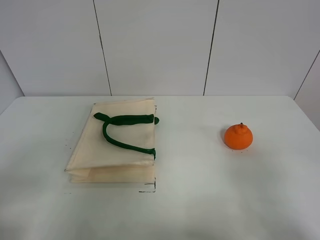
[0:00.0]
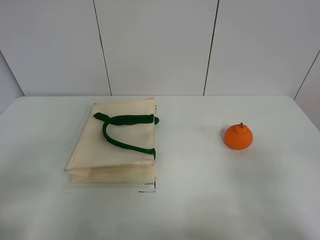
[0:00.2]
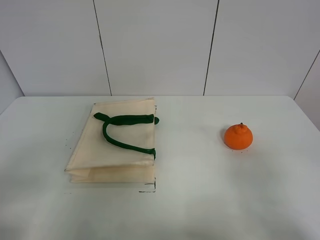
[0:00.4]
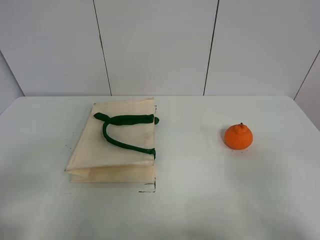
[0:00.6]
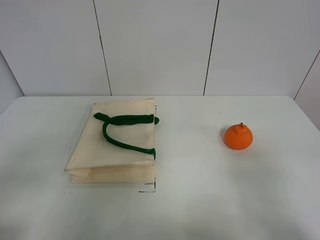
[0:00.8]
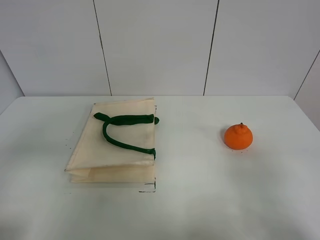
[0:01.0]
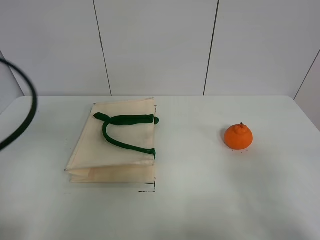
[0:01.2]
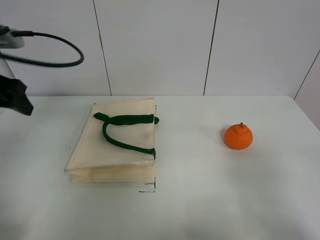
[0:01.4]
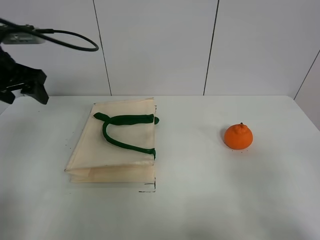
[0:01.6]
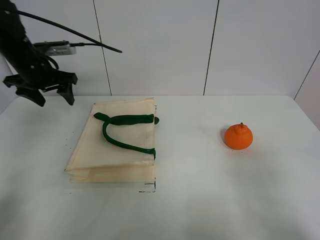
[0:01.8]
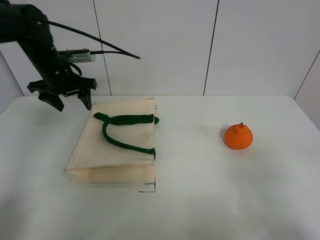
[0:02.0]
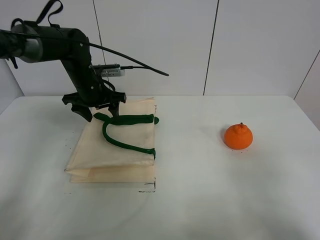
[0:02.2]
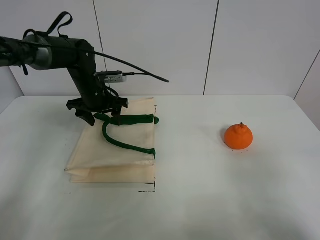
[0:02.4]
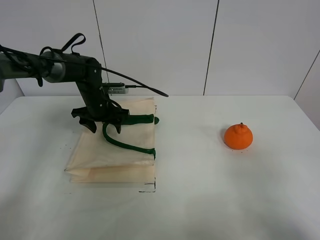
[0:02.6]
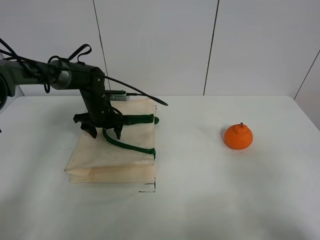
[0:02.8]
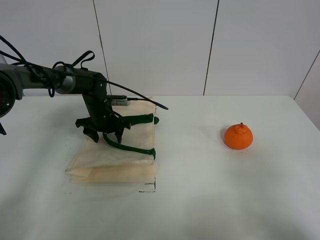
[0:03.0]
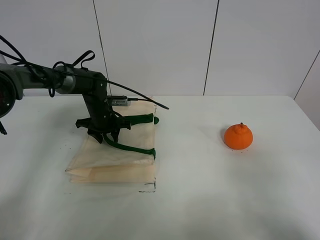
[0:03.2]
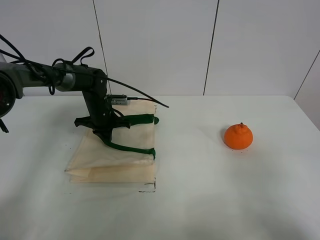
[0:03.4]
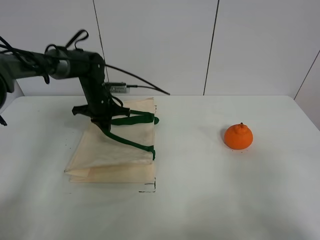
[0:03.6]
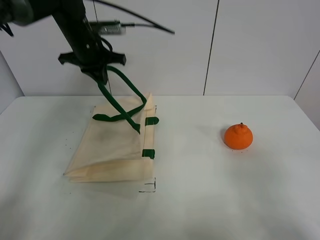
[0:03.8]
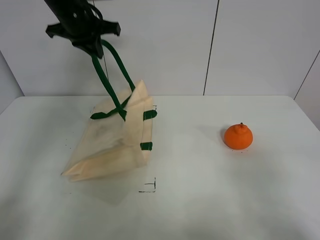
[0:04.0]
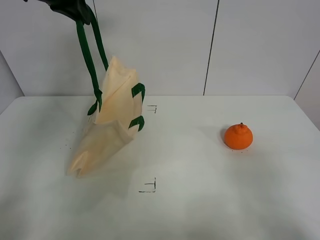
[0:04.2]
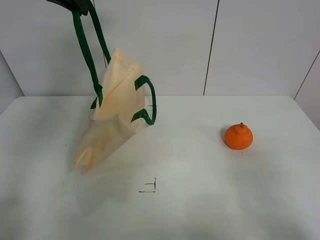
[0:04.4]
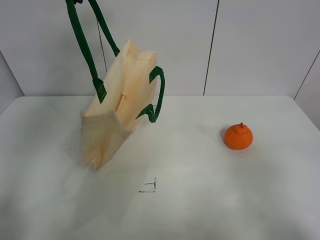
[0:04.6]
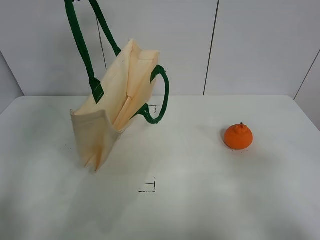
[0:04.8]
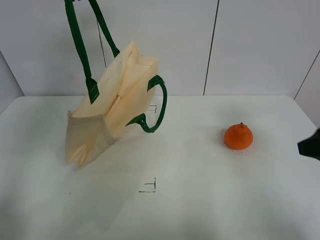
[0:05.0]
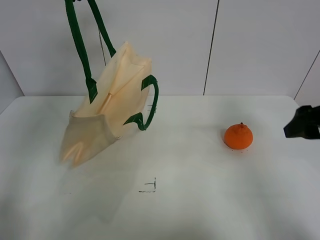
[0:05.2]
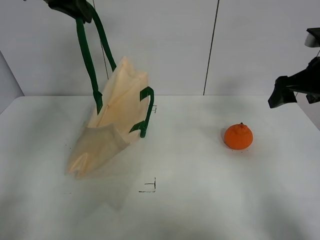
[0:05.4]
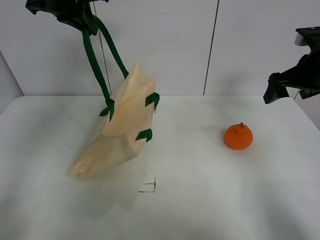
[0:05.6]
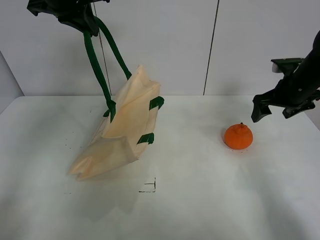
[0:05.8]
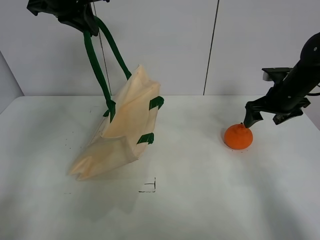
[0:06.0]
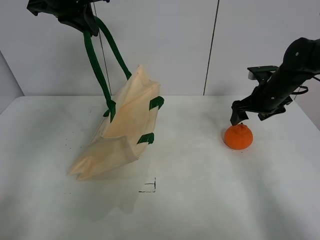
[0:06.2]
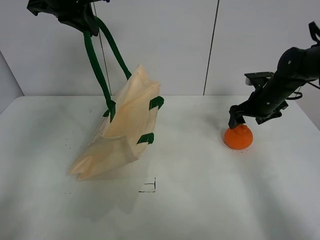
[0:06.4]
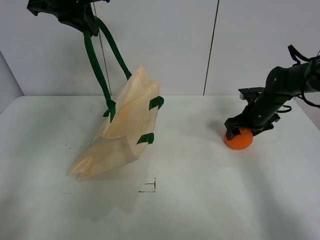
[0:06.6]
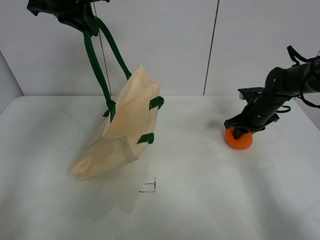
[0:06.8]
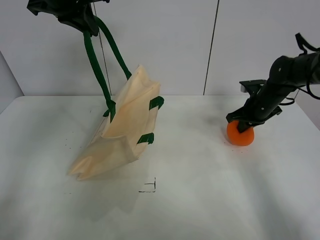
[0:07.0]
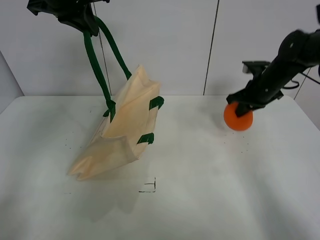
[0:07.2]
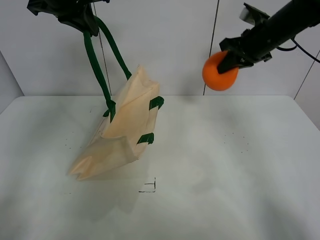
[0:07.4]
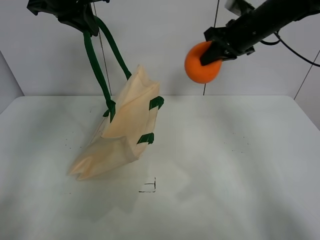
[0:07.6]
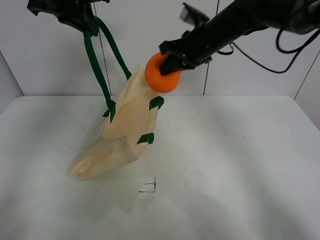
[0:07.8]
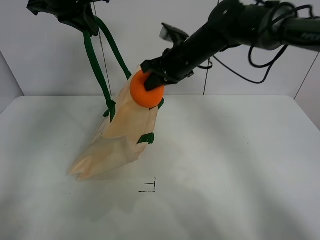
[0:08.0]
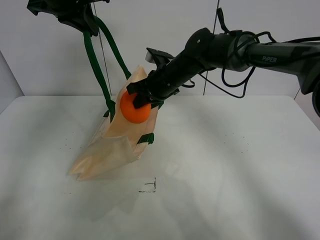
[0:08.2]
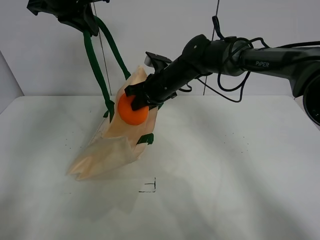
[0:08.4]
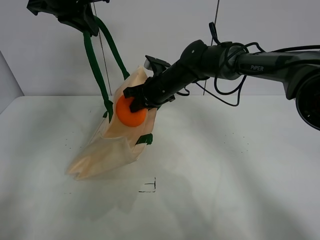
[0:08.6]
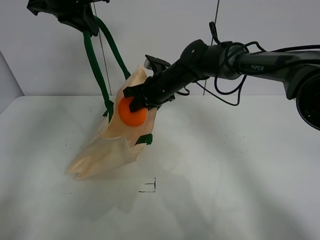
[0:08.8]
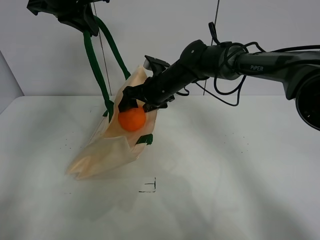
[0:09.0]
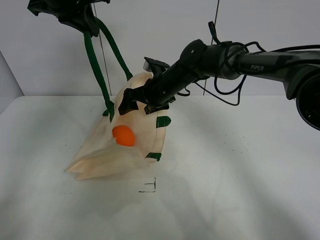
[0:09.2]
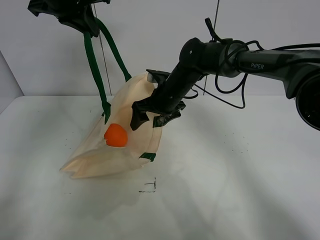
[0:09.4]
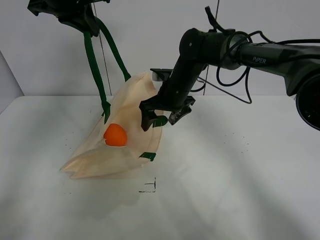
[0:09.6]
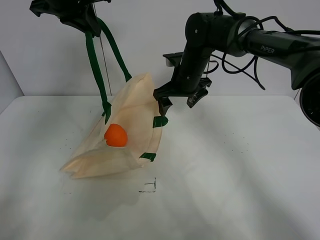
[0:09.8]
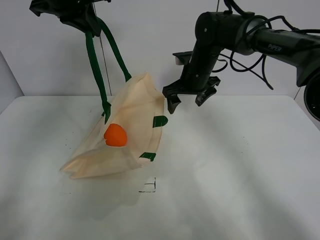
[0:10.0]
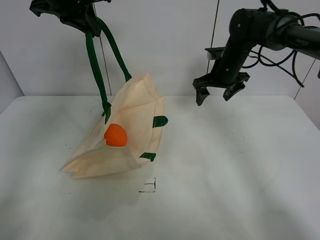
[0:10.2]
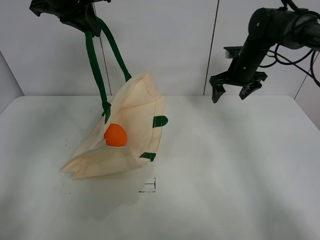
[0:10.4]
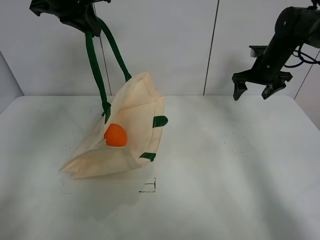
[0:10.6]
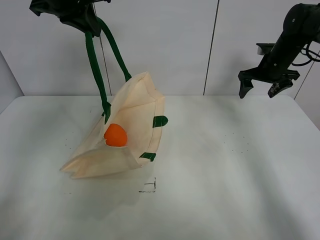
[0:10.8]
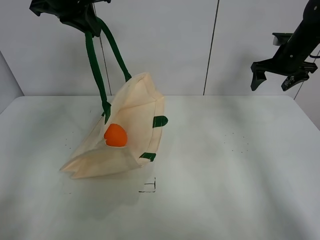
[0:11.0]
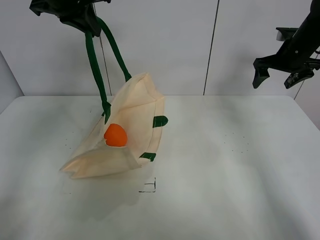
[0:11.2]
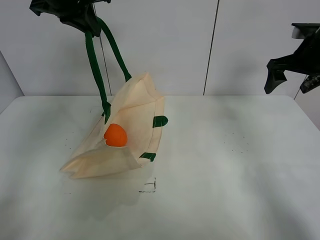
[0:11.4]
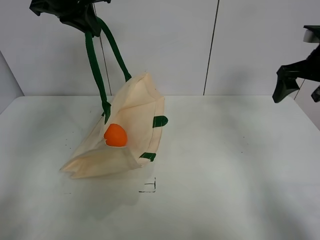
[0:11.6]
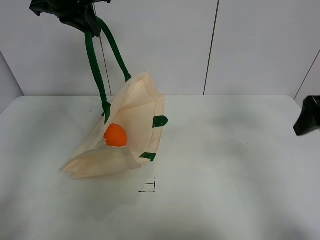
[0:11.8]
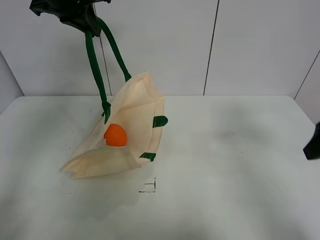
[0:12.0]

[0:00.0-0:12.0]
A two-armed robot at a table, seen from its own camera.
Task of the whole recording: open the white linen bag and put the orange in the bag.
Step, 0:00.0 to 0:04.4: Lift the handbag with left gripper.
Step, 0:04.6 to 0:06.8: Grasp the orange with right gripper.
Step, 0:07.0 to 0:09.6: Place the orange in the handbag with right gripper.
0:01.6 to 0:03.0: The left gripper moves downward, forward and to the right, roughly 30 cm.
0:03.0 to 0:04.4: The left gripper goes roughly 35 cm upward, and closes.
0:04.4 to 0:06.0: The right gripper moves forward, approximately 35 cm.
0:06.0 to 0:07.6: The right gripper goes roughly 15 cm upward and to the left, and closes its fingers.
0:07.6 to 0:09.0: The right gripper heads to the left and downward, covering approximately 25 cm, and opens up.
0:09.0 to 0:10.4: The right gripper shifts some 20 cm to the right.
0:10.4 to 0:12.0: The right gripper is displaced backward by approximately 25 cm.

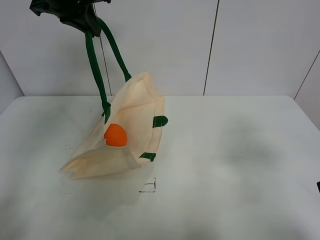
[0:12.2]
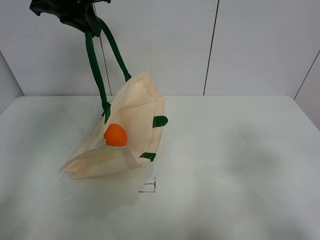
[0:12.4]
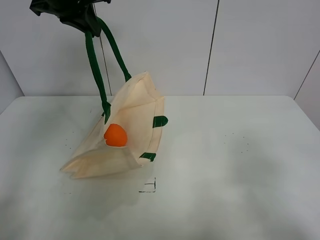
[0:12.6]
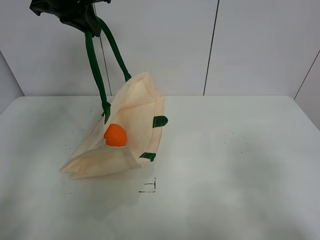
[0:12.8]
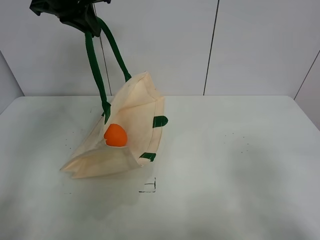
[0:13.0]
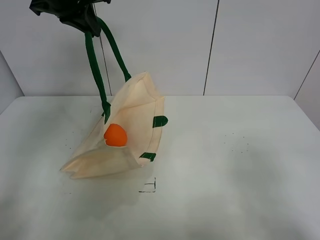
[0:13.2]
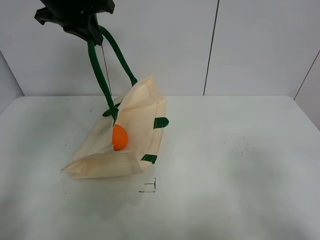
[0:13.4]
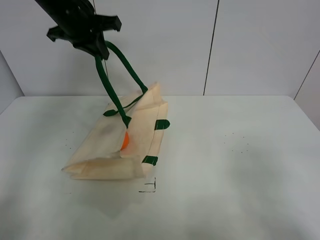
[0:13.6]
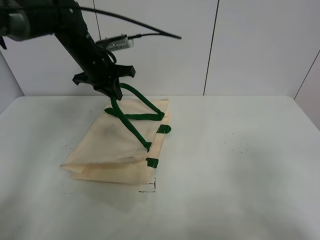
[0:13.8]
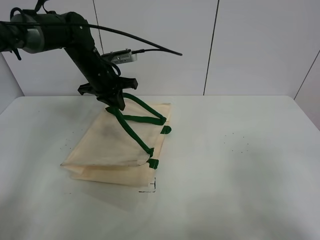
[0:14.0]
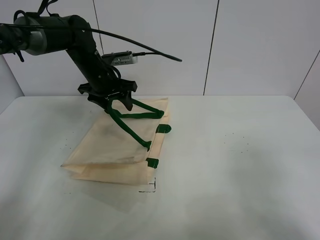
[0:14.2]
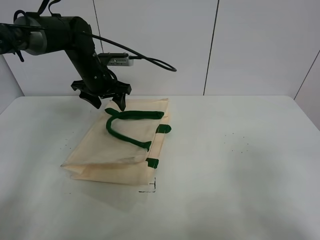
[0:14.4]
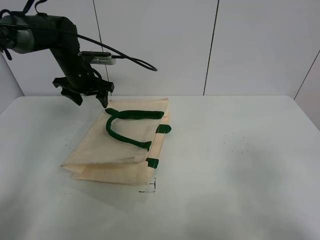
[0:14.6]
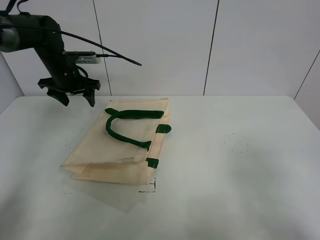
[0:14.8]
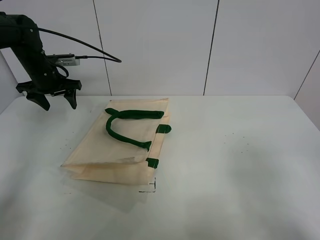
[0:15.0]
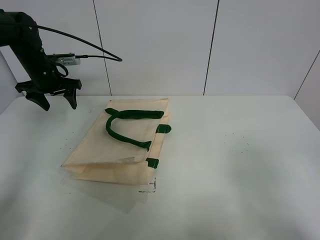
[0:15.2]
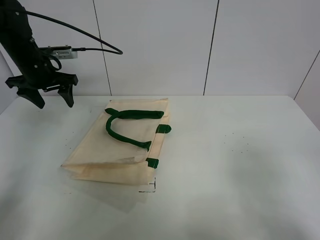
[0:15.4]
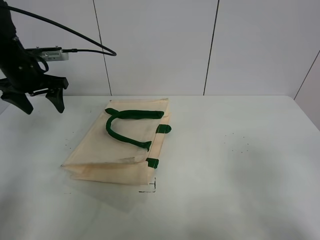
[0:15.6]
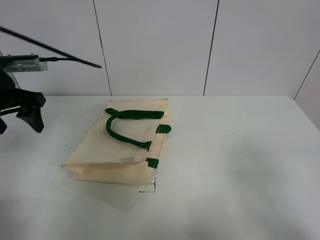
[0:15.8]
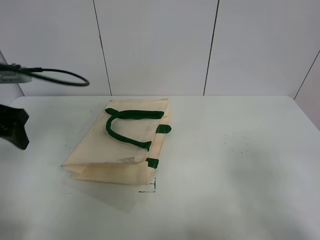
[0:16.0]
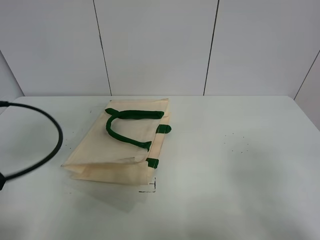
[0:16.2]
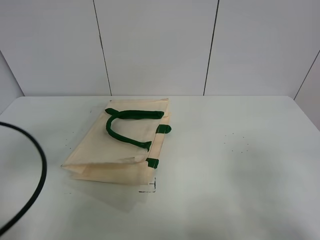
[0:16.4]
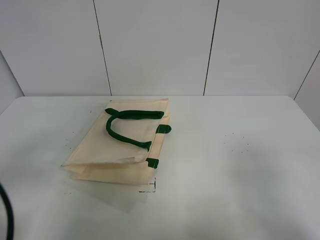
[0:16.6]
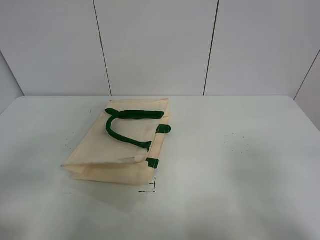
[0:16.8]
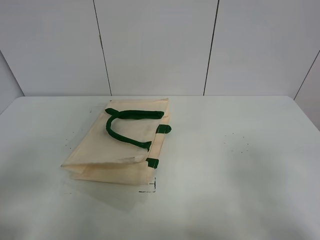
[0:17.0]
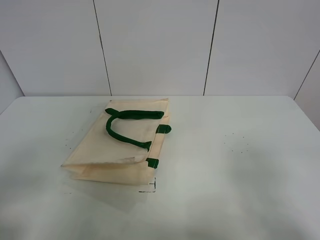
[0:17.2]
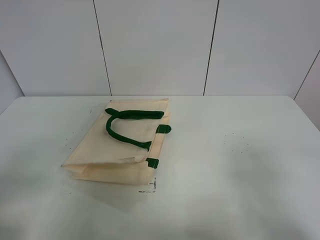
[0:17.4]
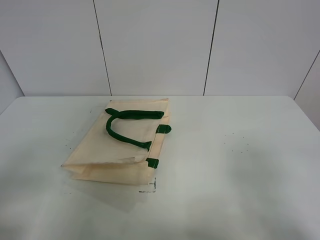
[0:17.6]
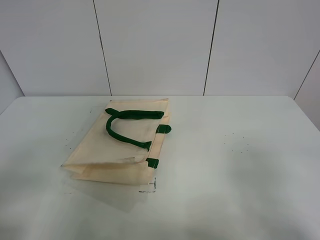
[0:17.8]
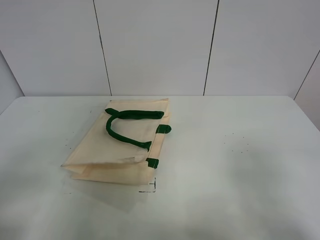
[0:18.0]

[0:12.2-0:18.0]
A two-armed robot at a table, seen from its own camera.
Task of the whole recording: open the white linen bag and put the orange in the bag.
Step, 0:12.2 to 0:14.6: Lift the handbag with left gripper.
0:12.2 to 0:13.6: The right gripper shifts about 10 cm backward.
0:13.6 to 0:15.0: The left gripper is displaced downward and to the left by roughly 20 cm, and opens.
0:15.0 to 0:16.6: The left gripper moves backward, roughly 40 cm.
